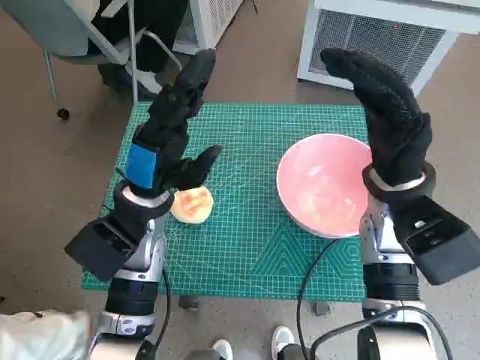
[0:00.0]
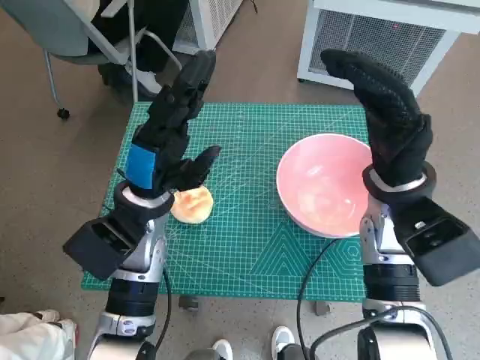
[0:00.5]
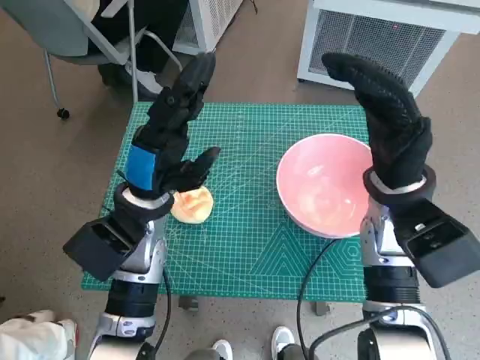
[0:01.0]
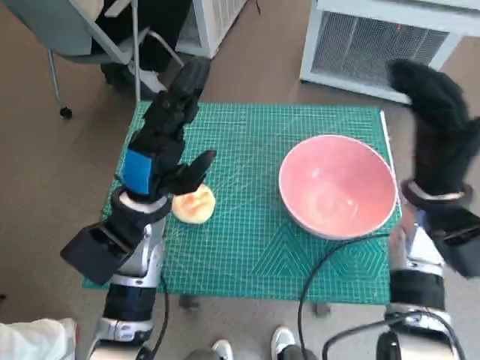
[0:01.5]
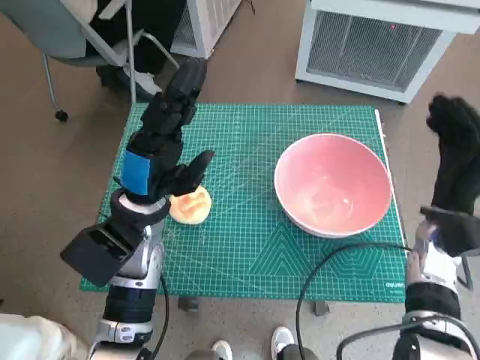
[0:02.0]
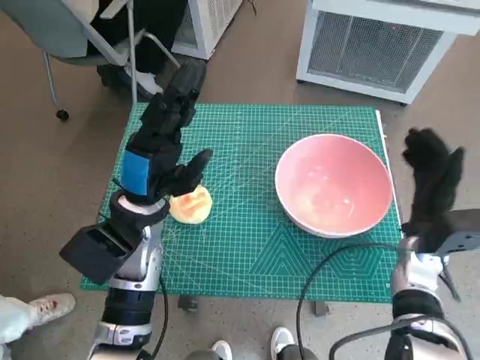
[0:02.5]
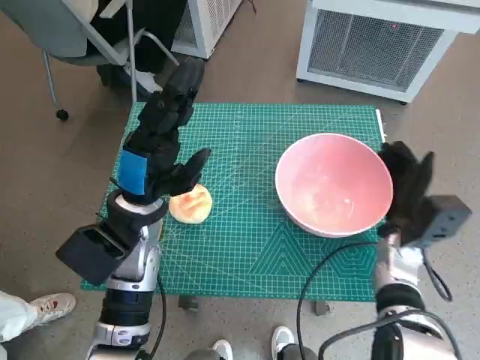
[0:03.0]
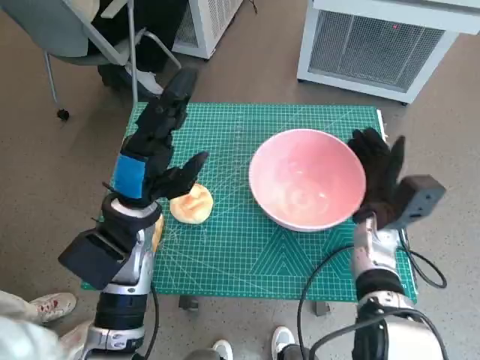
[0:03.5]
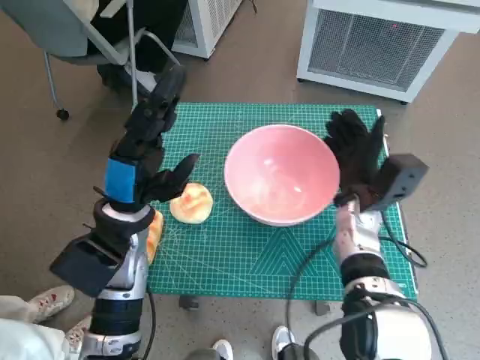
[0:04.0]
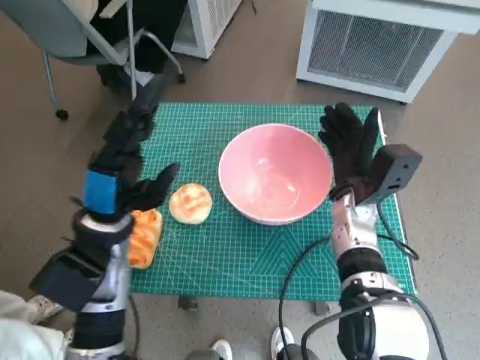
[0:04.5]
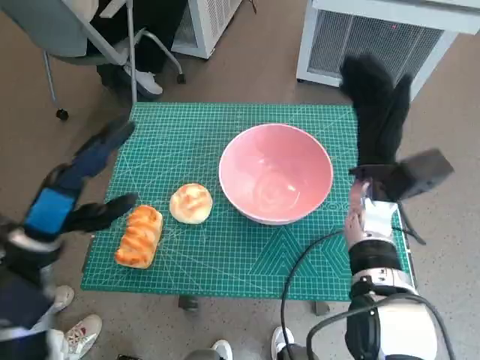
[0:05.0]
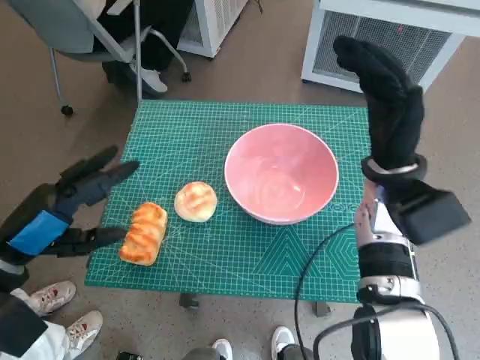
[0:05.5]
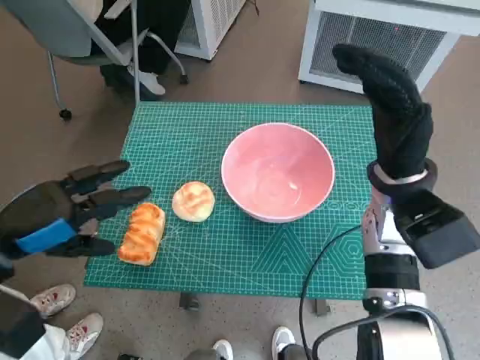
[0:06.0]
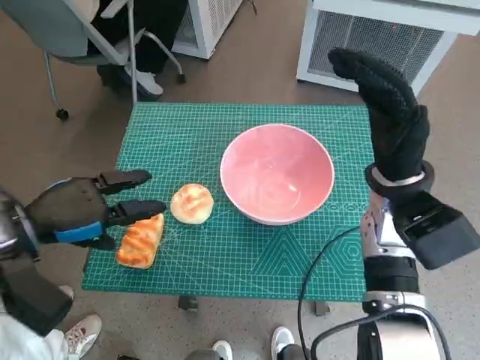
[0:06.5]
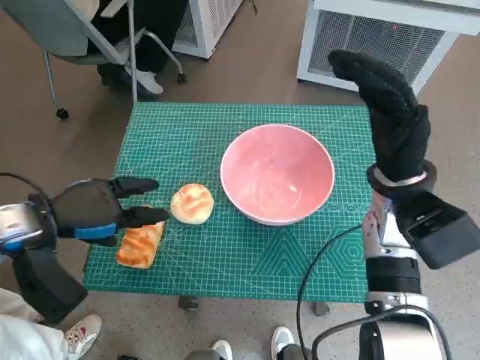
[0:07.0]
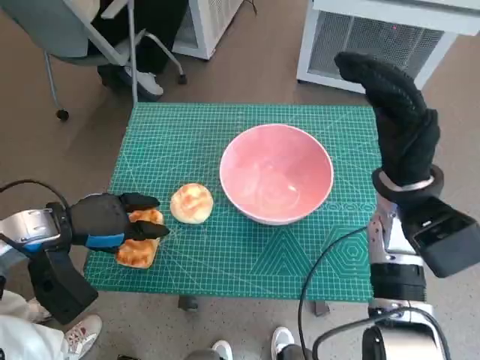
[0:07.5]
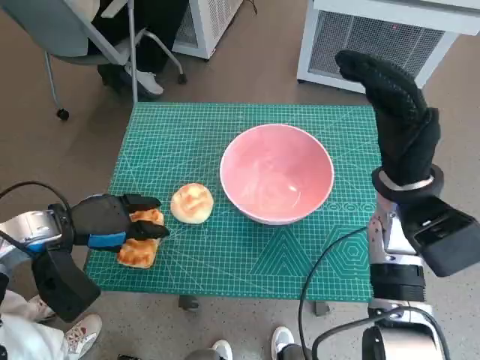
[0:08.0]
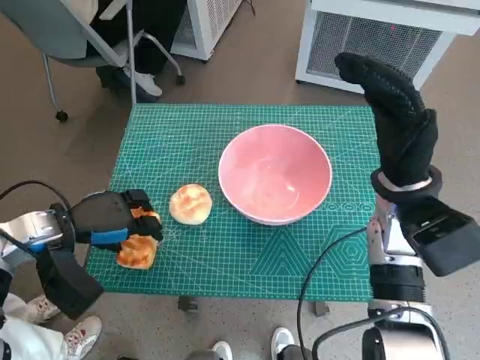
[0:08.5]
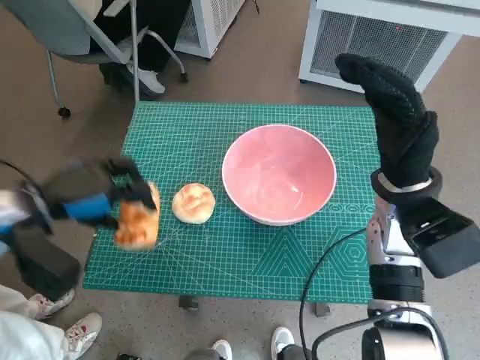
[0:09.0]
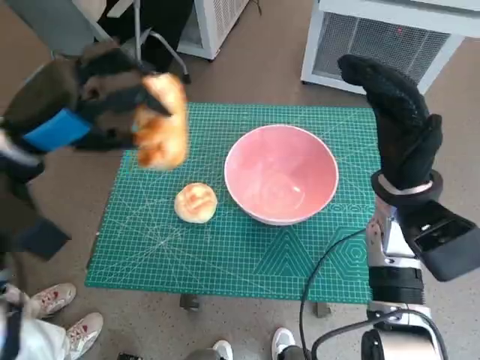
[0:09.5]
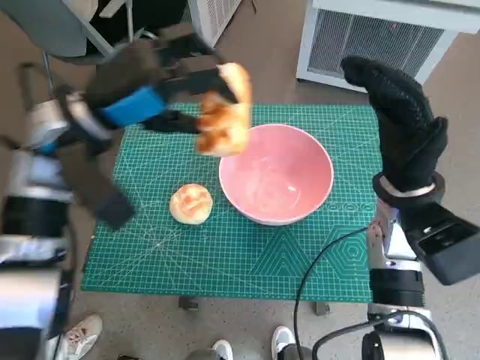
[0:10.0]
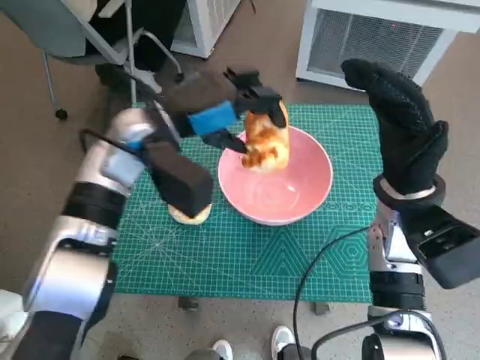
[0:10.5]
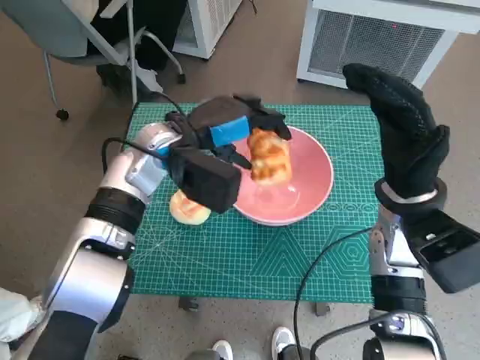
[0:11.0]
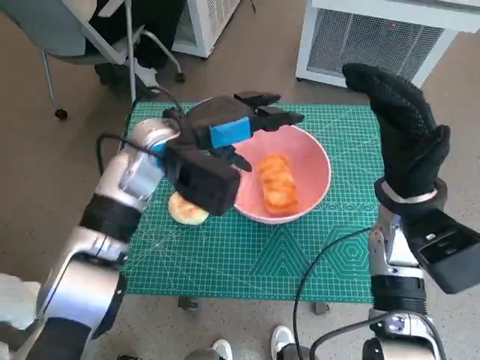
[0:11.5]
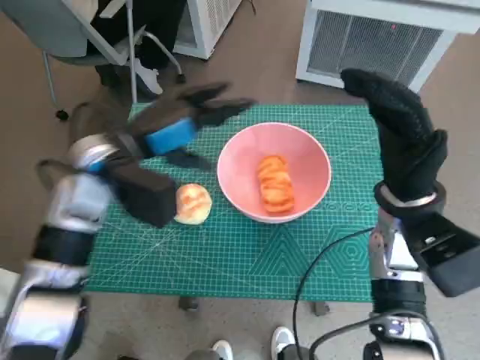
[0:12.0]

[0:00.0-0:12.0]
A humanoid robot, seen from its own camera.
Task of the whole recording: Push the bowl to the center of the table and put the bread into the bowl.
Step, 0:00.0 to 0:04.5: Move the pink bowl to the center of table with right hand.
Step, 0:05.0 to 0:08.0: Grasp the long bread with left hand.
Step, 0:08.5 to 0:11.0: Place the long bread in pink bowl with left hand.
0:02.0 to 0:04.0: The right hand heads to the left, covering some 10 cm.
0:04.0 to 0:06.0: The left hand heads to the left and backward, covering approximately 15 cm. Meanwhile the right hand is displaced upward by about 10 cm.
0:06.0 to 0:08.0: The left hand shifts some 10 cm forward and downward.
0:08.0 to 0:10.0: The left hand shifts approximately 15 cm upward, to the right and forward.
0:10.0 to 0:12.0: The left hand heads downward, covering approximately 5 cm, and travels to the right and back again, approximately 10 cm each way.

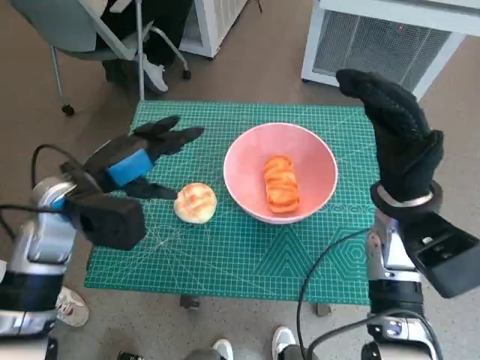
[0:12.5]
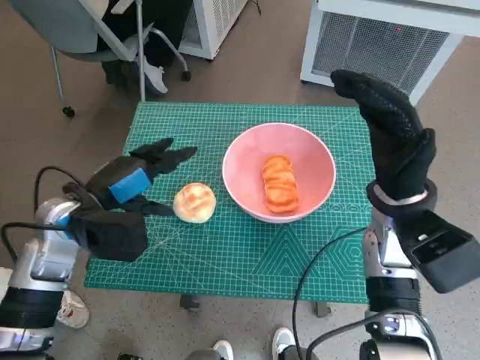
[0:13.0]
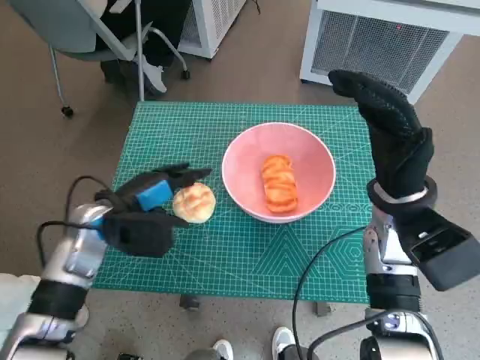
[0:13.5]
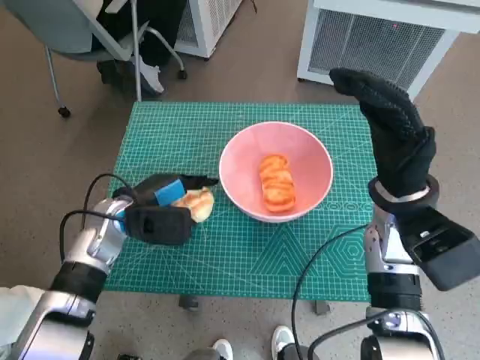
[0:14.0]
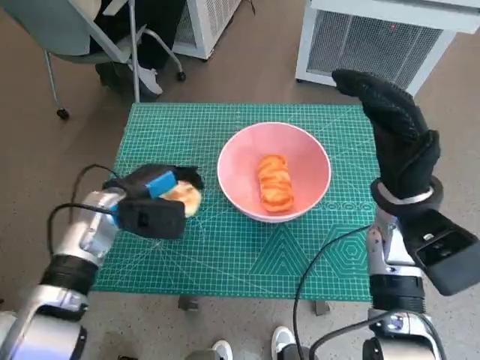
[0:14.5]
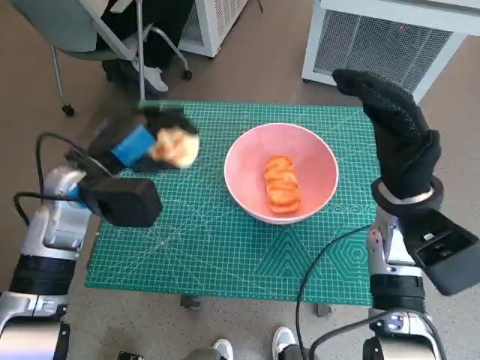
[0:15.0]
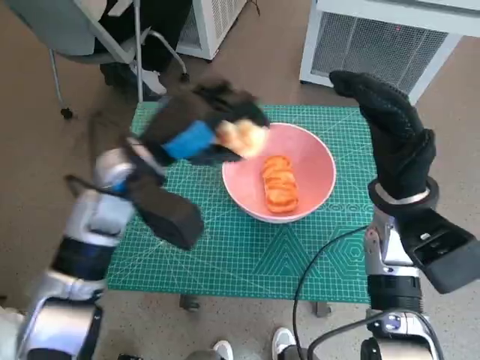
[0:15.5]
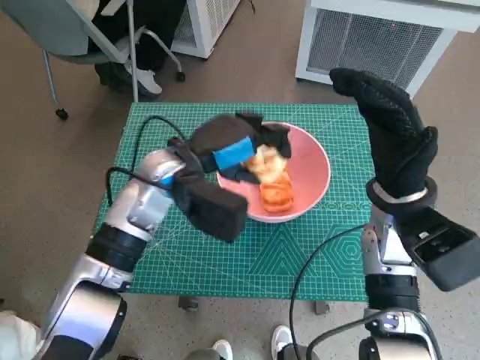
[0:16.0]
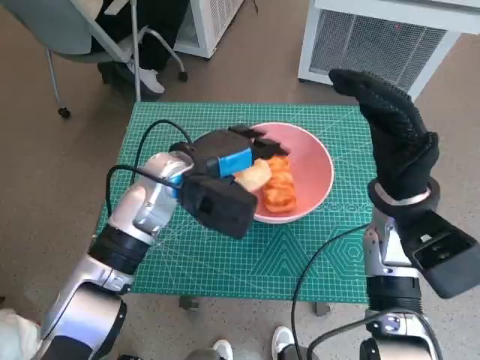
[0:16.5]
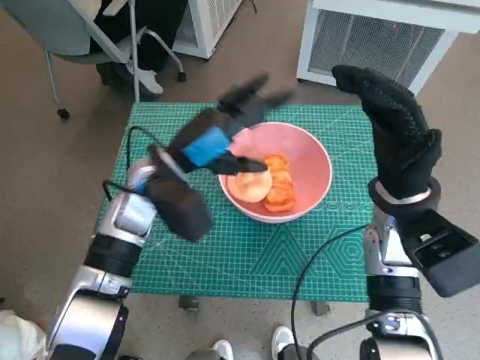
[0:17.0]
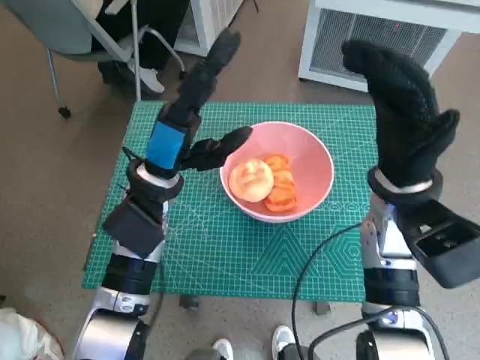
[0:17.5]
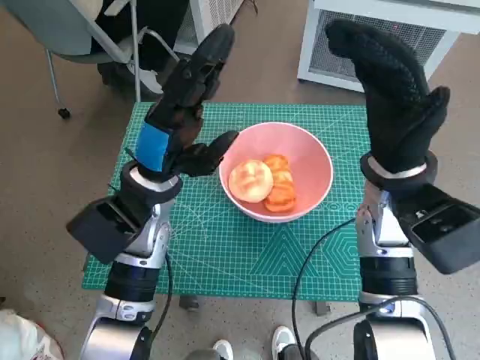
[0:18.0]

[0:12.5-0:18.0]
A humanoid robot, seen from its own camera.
Task of the whole recording: Push the bowl to the center of the table and put the bread into the bowl.
Step, 0:12.5 to 0:14.0: Grasp the round bread with left hand.
Step, 0:14.5 to 0:16.5: Place the round bread in pink bowl with left hand.
0:12.5 to 0:14.5: The left hand heads downward, covering approximately 10 cm.
0:14.5 to 0:16.0: The left hand heads to the right and upward, covering approximately 15 cm.

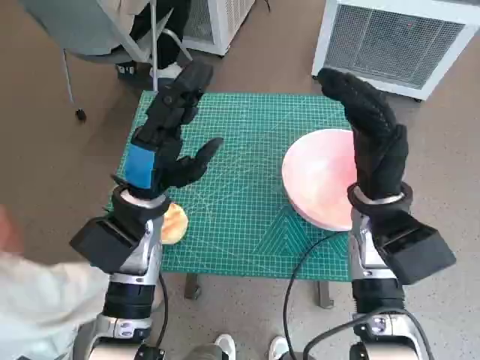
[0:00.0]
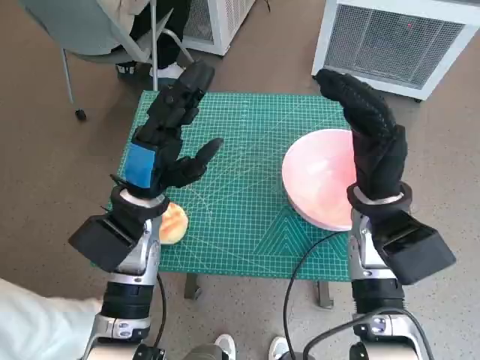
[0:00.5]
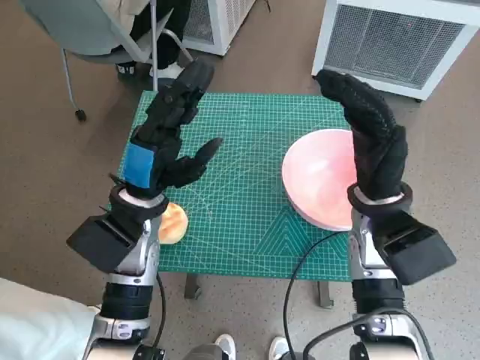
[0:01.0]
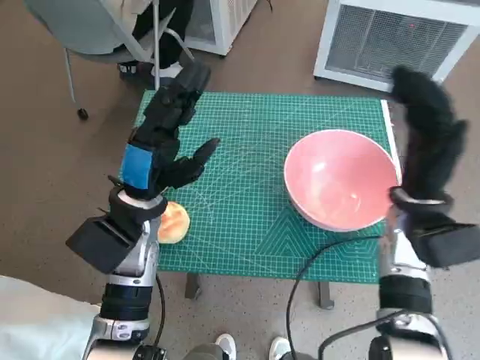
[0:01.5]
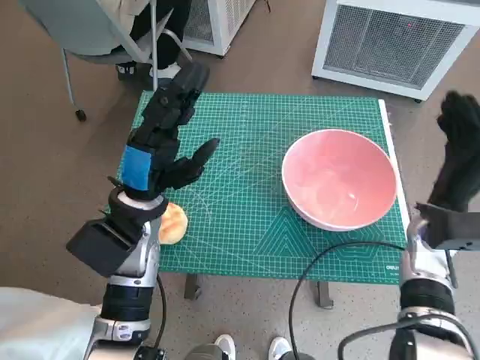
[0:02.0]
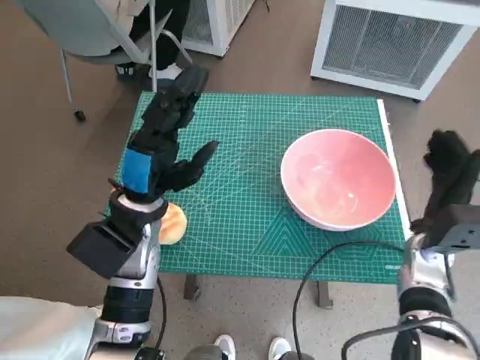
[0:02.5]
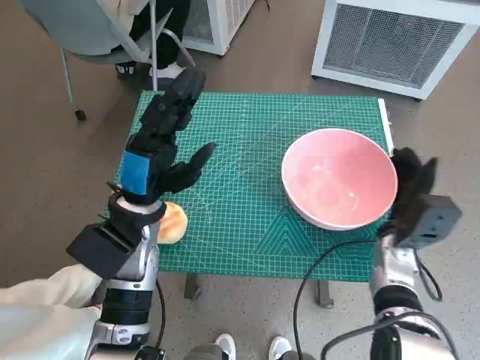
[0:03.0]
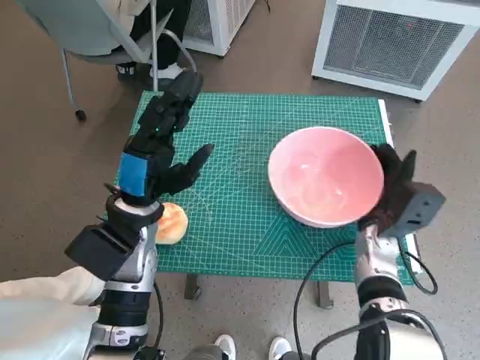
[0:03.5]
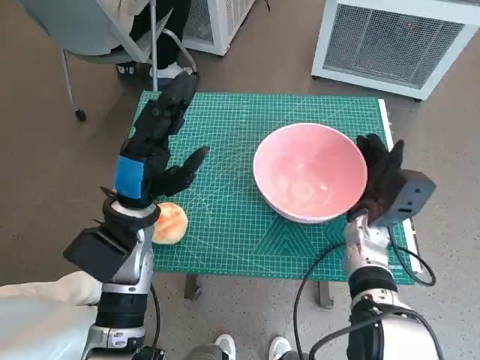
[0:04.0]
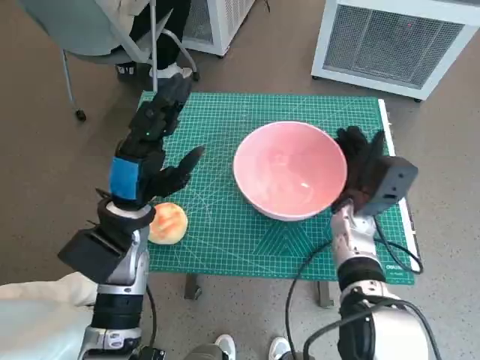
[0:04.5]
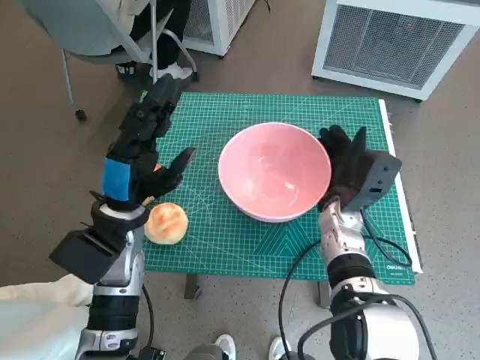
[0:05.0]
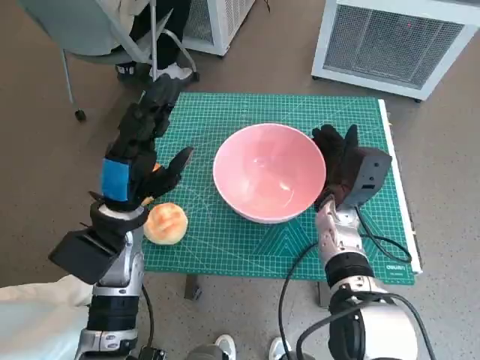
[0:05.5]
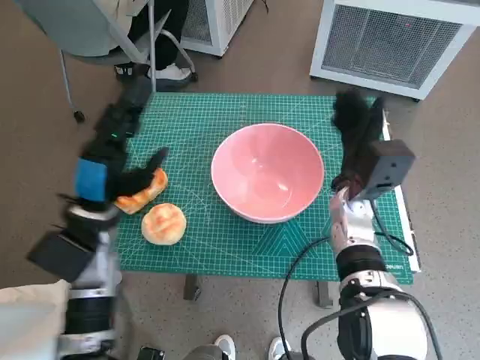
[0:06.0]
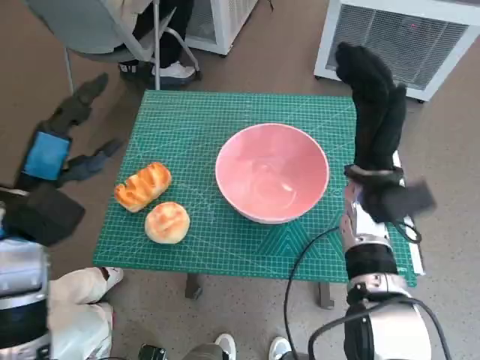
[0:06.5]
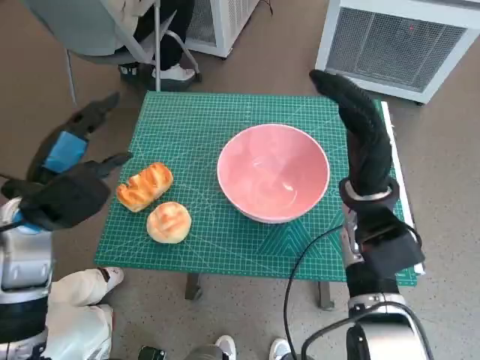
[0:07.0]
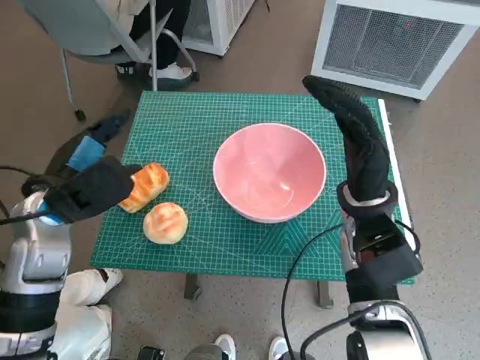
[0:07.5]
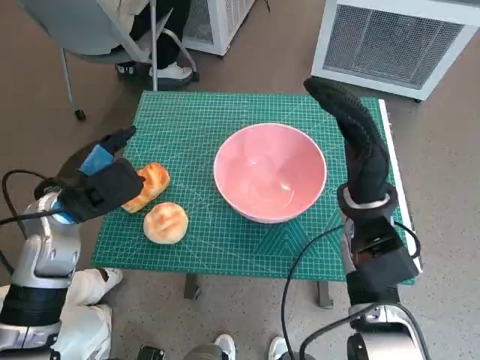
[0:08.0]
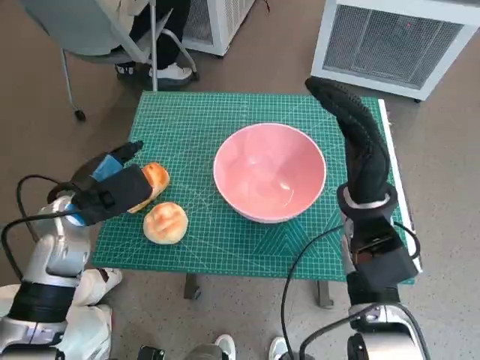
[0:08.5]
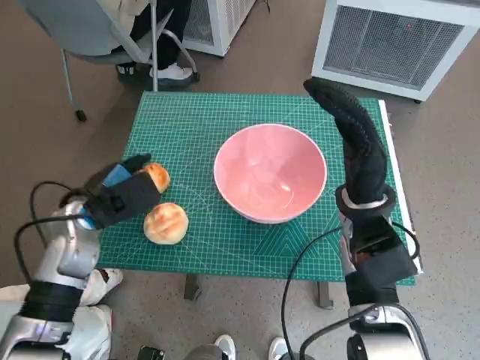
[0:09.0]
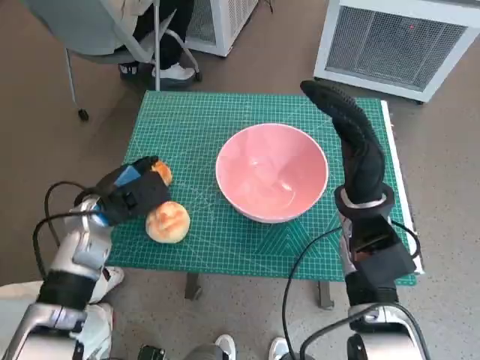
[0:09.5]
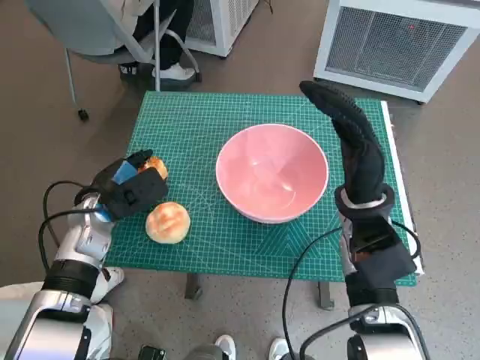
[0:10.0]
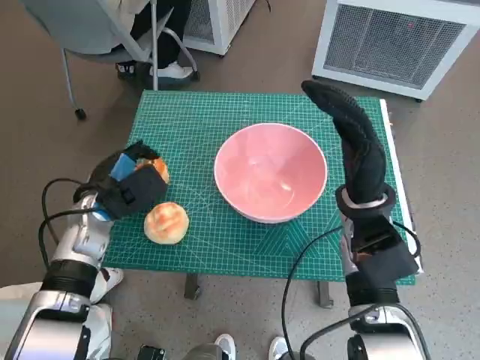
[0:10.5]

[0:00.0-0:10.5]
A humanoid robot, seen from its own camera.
Task of the whole recording: Push the bowl to the center of the table and put the bread into the bowl.
Step, 0:00.0 to 0:06.0: Move the pink bowl to the center of table with right hand.
Step, 0:06.5 to 0:09.5: Grasp the long bread with left hand.
0:02.0 to 0:04.0: The right hand shifts approximately 10 cm to the left and downward.
0:04.0 to 0:06.5: The right hand travels upward by about 10 cm. Meanwhile the left hand heads to the left, covering about 10 cm.
0:06.5 to 0:08.5: The left hand shifts by about 5 cm.
0:08.5 to 0:10.5: The left hand shifts by roughly 5 cm.
